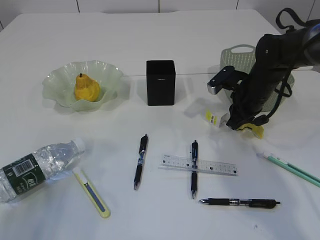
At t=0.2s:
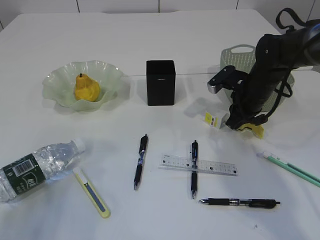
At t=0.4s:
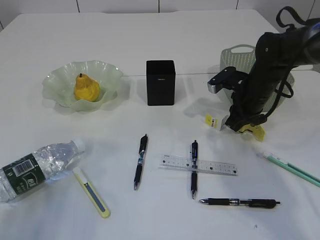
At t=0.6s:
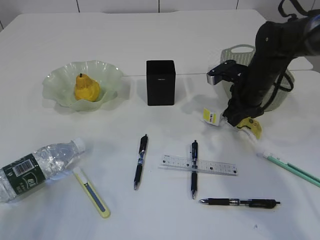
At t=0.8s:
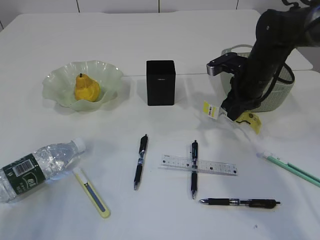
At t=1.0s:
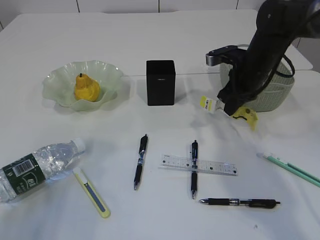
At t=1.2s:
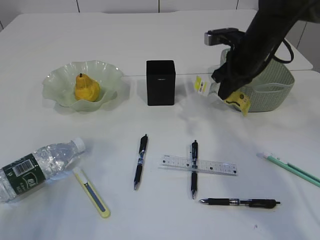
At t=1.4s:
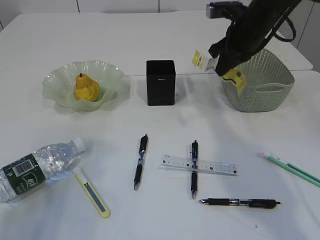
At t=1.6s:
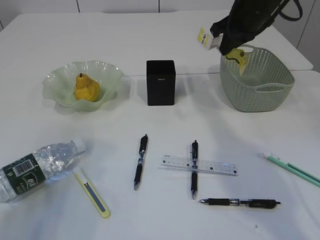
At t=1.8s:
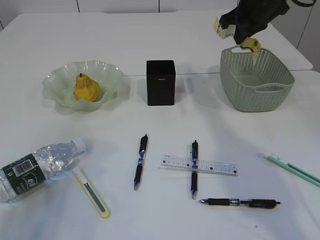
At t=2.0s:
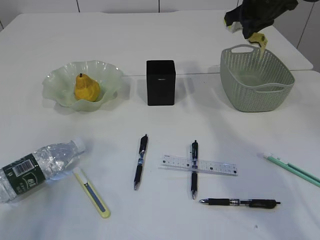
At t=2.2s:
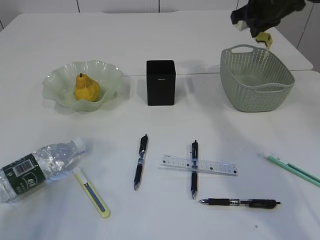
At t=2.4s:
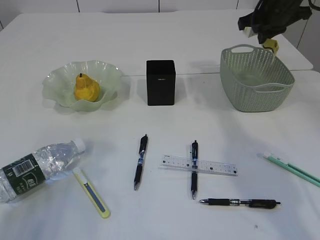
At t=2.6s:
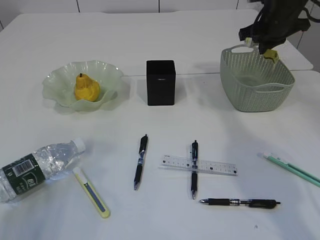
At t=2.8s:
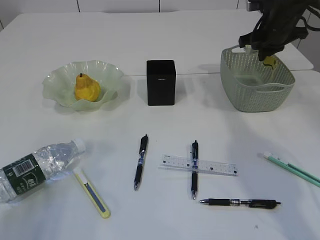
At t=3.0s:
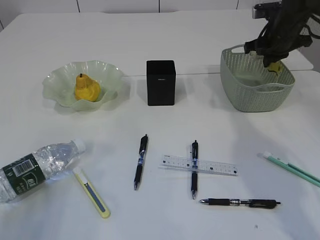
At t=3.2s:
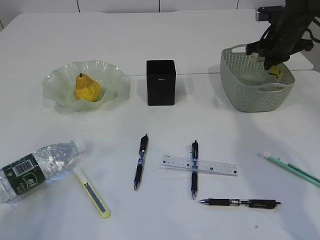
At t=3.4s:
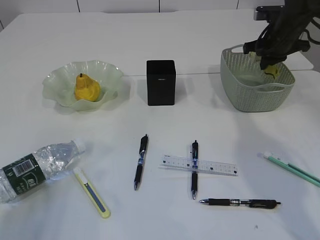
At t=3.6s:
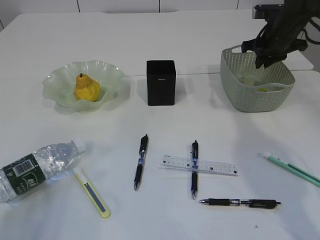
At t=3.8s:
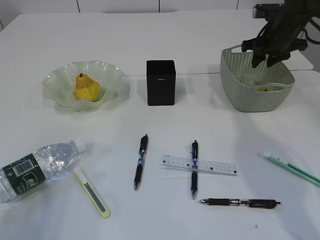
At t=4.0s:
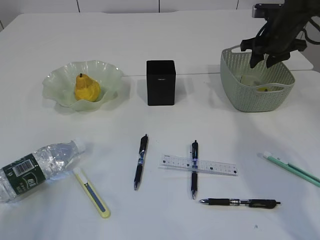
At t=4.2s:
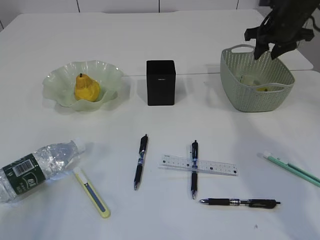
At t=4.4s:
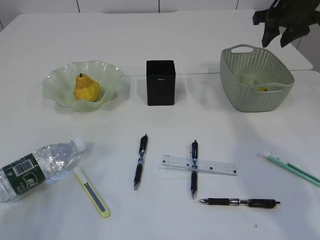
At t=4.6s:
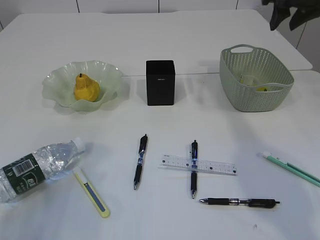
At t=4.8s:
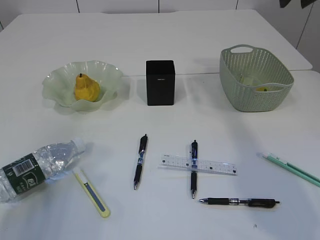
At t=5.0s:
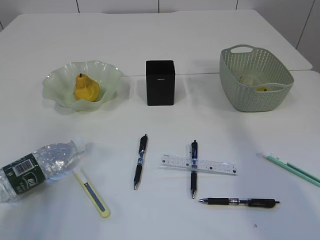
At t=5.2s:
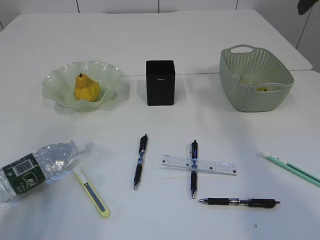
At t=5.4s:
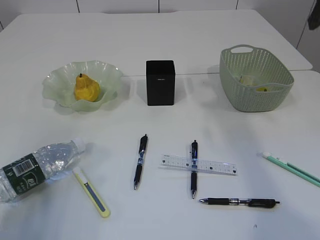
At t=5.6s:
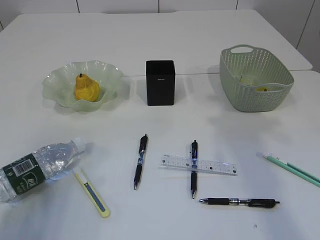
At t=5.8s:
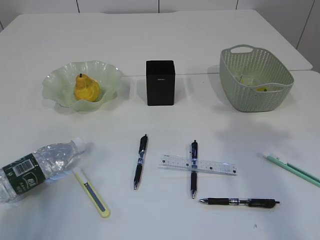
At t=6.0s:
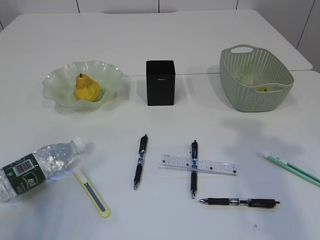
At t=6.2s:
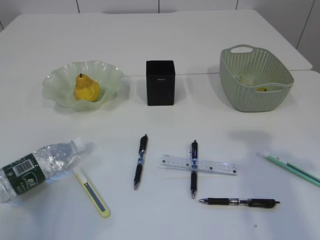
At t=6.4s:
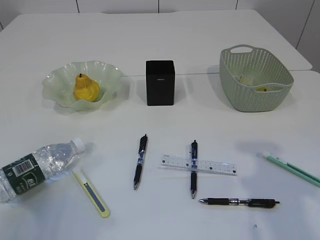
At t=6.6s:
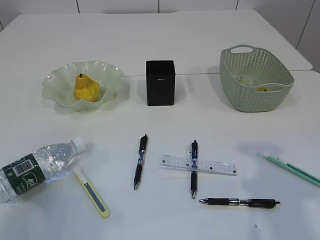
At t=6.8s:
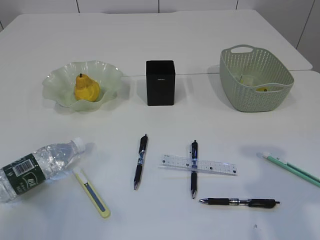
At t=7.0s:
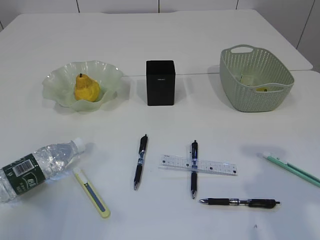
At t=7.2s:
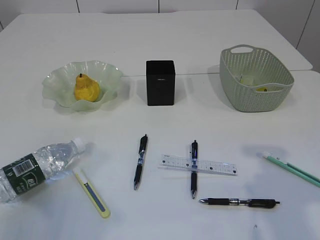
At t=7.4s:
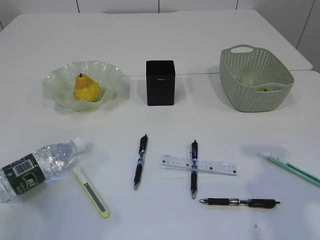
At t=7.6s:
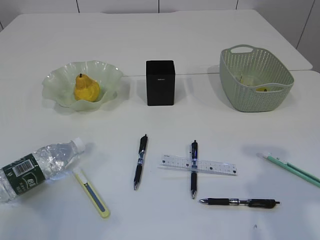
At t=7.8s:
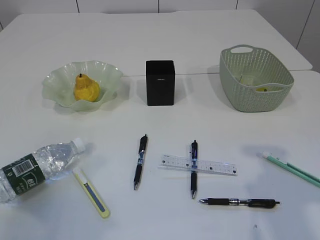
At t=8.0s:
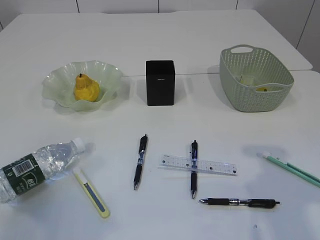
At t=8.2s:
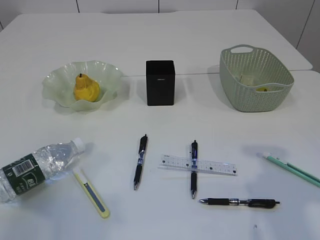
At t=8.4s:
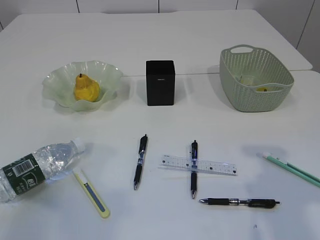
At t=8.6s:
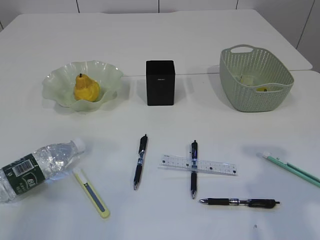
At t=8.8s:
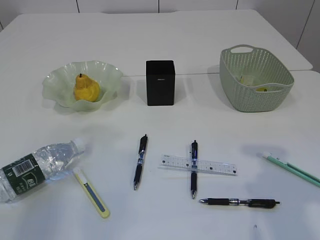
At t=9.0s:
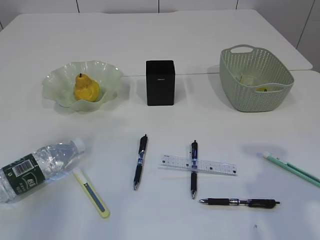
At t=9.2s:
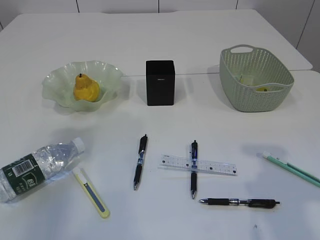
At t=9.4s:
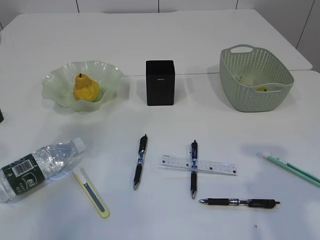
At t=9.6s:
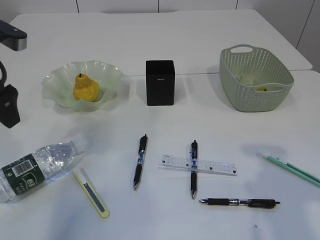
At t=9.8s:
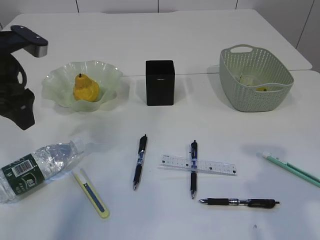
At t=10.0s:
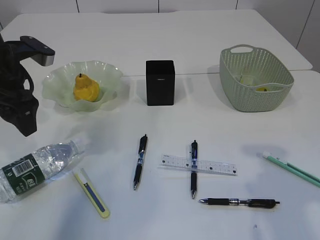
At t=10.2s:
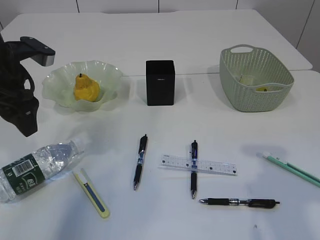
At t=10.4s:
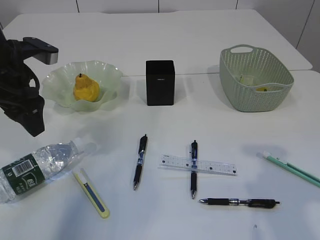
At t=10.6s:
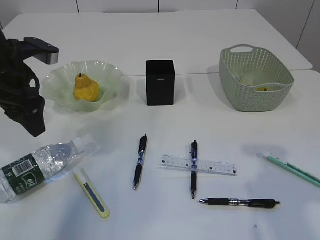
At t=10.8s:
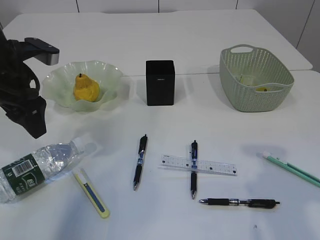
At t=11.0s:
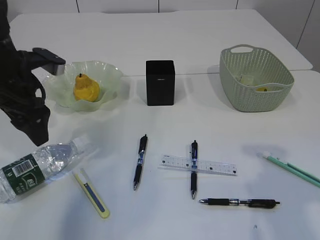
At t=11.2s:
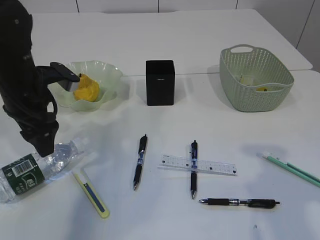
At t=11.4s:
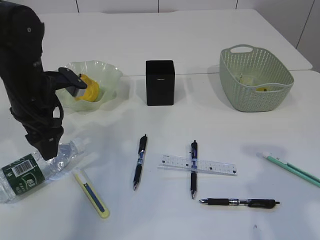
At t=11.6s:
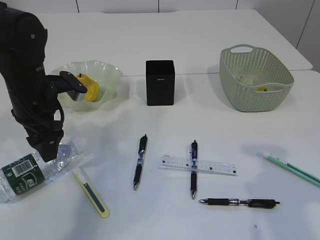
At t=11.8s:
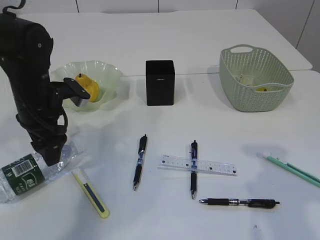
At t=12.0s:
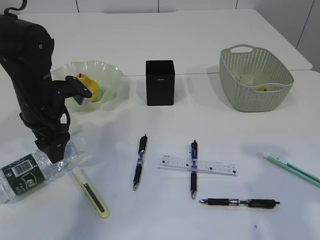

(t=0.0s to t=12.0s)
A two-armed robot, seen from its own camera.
Step, t=1.0s - t=4.2s: Place the plastic in the basket.
t=0.0s - t=1.6s: The right gripper goes approximately 15 cm upward.
t=1.6s - t=3.0s: The right gripper travels to the right and downward by roughly 10 cm.
t=3.0s - t=4.4s: The right gripper moves upward, some 5 cm, and opens up.
t=4.4s - t=6.0s: The right gripper shifts some 25 cm backward.
t=9.0s - t=10.4s: The left gripper travels forward, to the right and downward by roughly 15 cm.
t=10.4s - t=12.0s: The left gripper is displaced downward by approximately 10 cm.

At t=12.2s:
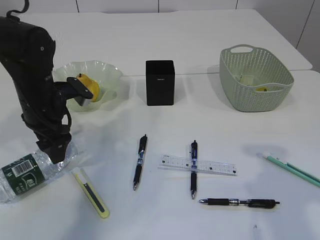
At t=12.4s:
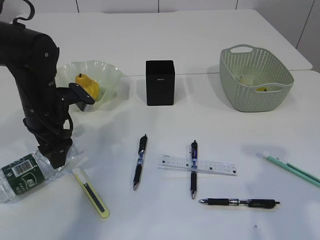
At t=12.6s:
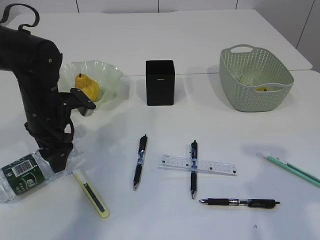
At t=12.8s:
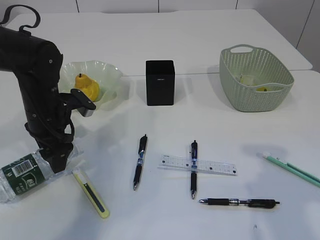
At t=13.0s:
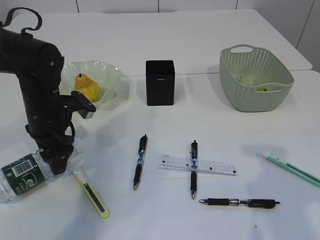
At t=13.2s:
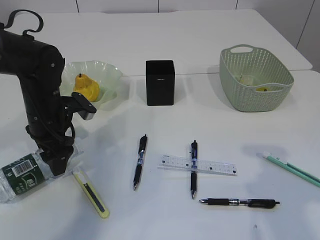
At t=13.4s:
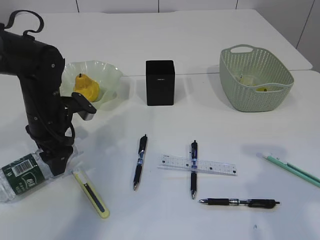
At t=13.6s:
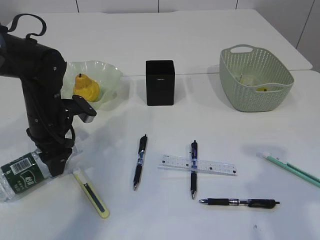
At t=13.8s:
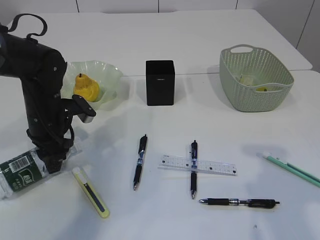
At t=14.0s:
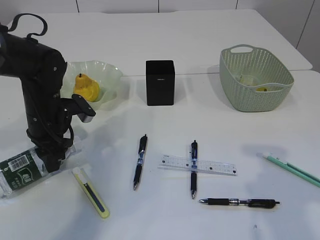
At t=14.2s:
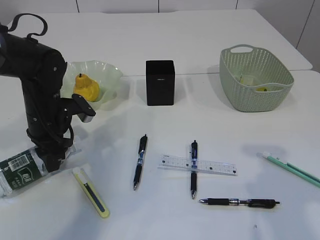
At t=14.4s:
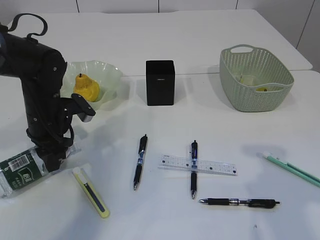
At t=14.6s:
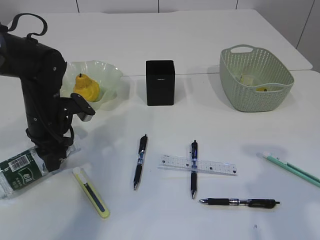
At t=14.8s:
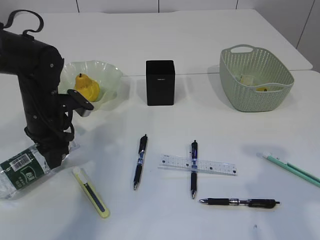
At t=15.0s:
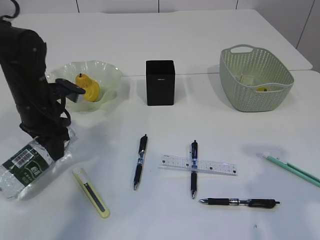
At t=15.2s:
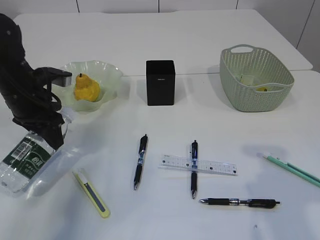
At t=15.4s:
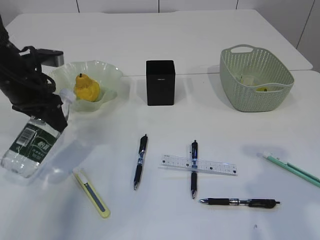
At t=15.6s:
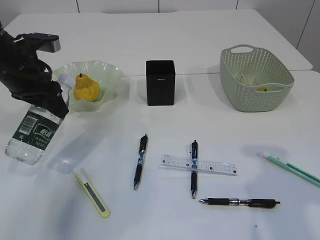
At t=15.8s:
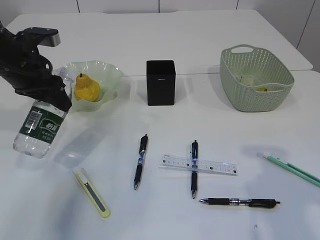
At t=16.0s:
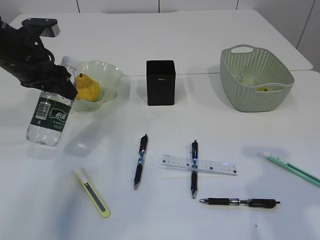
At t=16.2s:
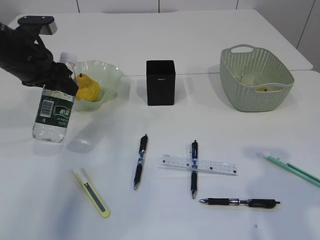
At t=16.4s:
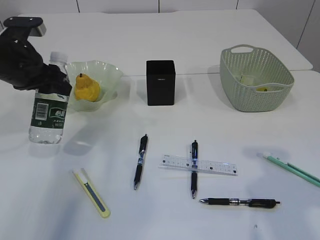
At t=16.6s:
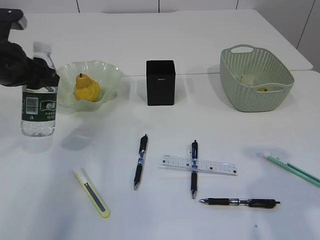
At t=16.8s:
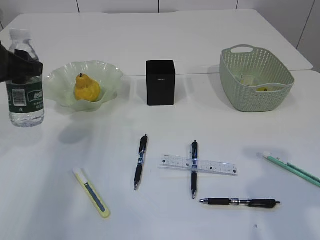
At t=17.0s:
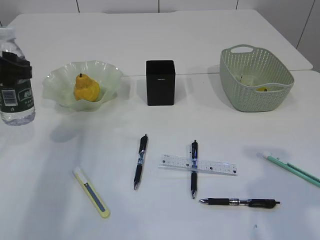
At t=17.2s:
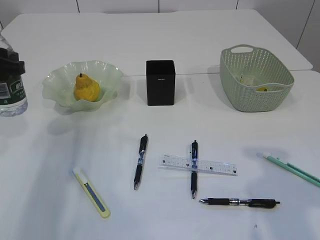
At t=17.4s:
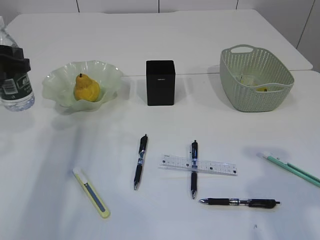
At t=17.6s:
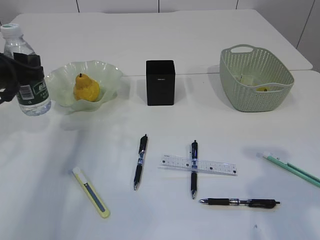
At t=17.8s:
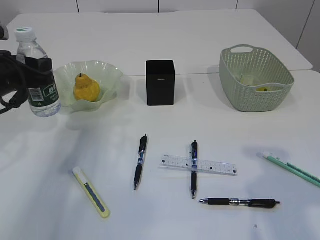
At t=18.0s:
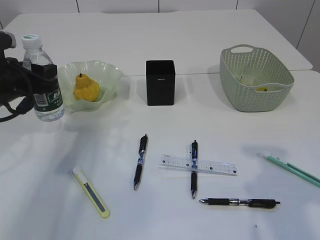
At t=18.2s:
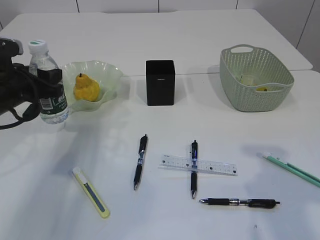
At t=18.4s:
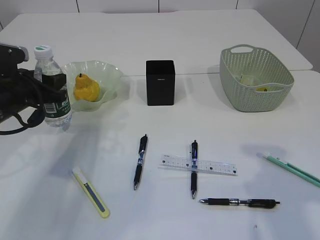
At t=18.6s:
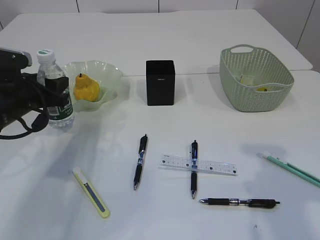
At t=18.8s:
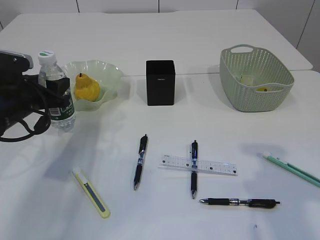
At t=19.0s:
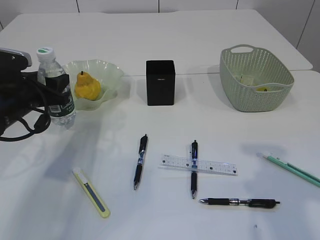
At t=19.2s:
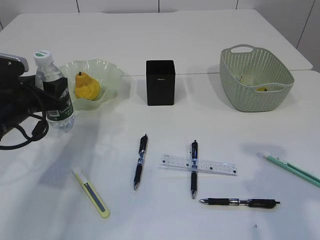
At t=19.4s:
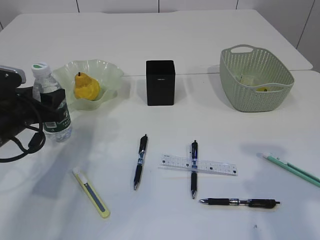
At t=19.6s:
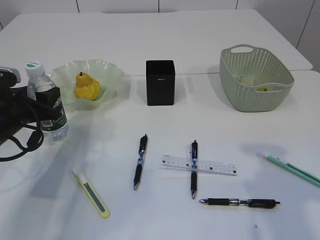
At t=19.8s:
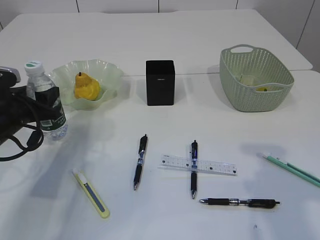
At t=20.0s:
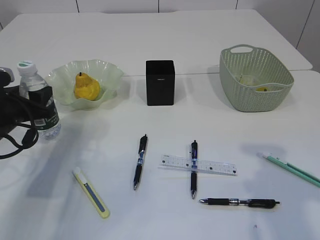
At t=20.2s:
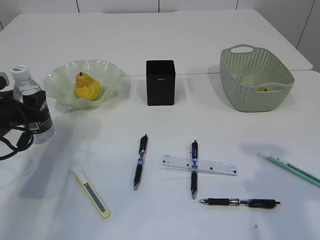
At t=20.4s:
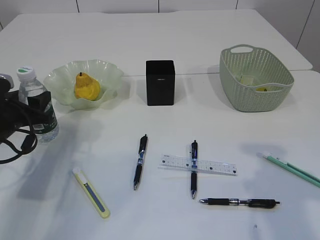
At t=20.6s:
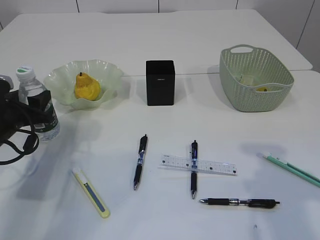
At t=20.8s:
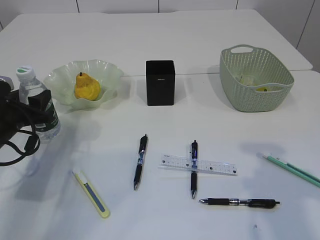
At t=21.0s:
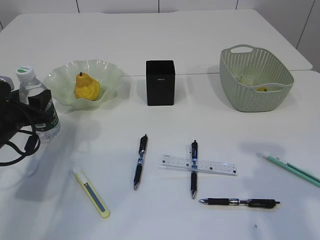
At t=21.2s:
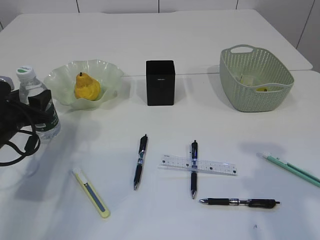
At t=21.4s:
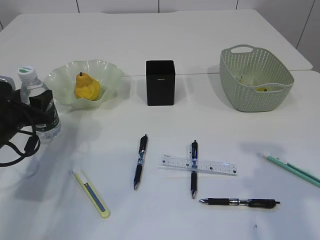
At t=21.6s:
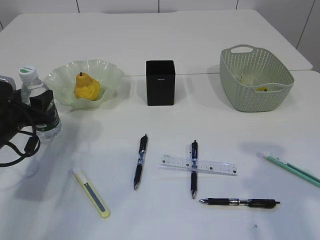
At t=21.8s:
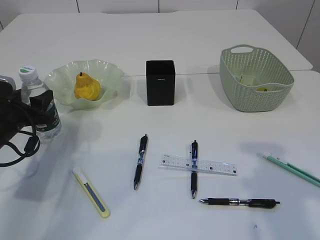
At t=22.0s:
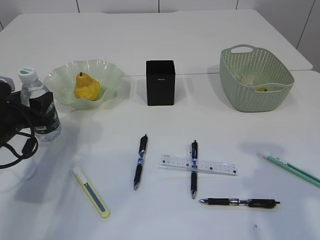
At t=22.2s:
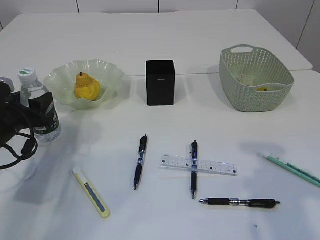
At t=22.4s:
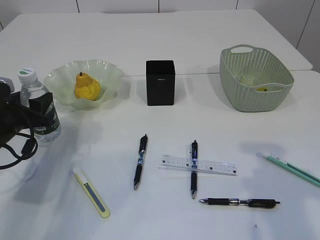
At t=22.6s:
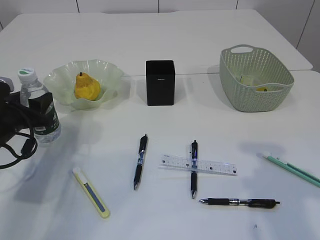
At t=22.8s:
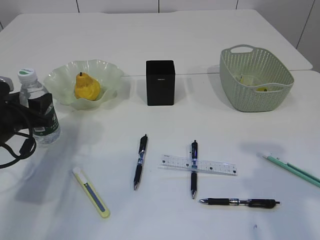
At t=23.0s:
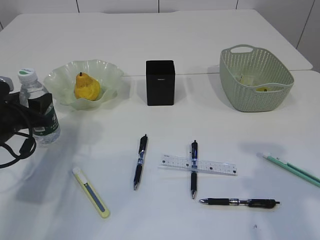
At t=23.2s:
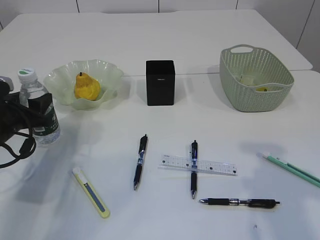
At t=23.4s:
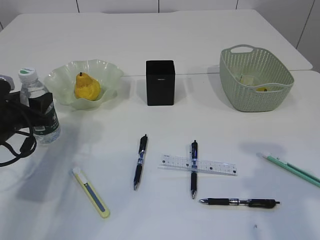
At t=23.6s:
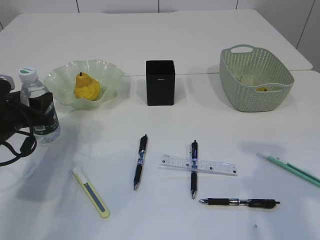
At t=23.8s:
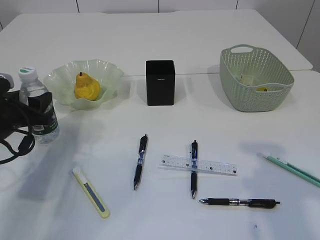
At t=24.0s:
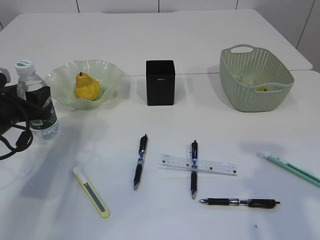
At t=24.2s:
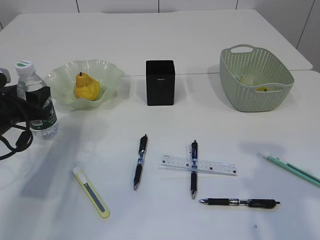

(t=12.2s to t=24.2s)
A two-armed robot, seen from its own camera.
Step, t=12.2s - t=15.0s: Pick up the bottle with the left arm.
t=12.2s - t=13.8s: The grippers stay close to where they were, moving slightly.
t=13.8s - t=15.2s: The left gripper ends up approximately 5 cm from where it was.
t=15.2s - t=16.6s: The left gripper is displaced upward by approximately 5 cm.
t=16.6s - t=18.2s: The left gripper travels downward by some 5 cm.
t=18.2s - t=19.8s: The grippers move only a little.
t=19.8s - t=21.2s: The grippers stay close to where they were, moving slightly.
t=21.2s - t=22.6s: Both grippers stay about where they are.
t=22.6s - t=24.2s: There are only small adjustments of the grippers.
